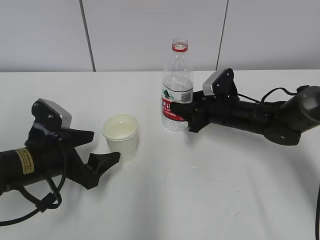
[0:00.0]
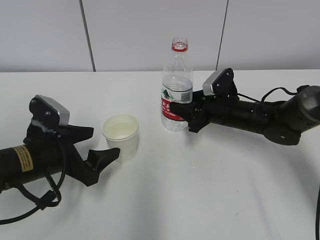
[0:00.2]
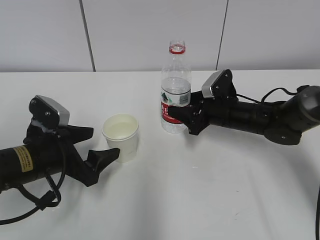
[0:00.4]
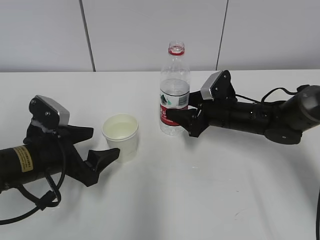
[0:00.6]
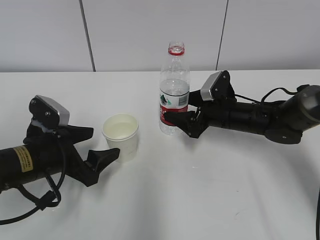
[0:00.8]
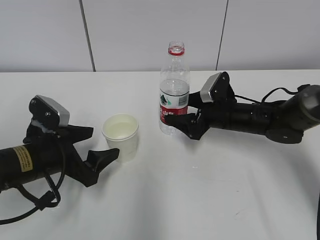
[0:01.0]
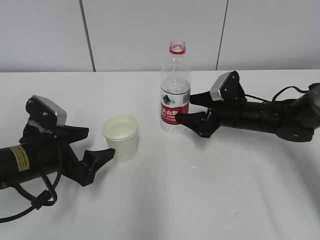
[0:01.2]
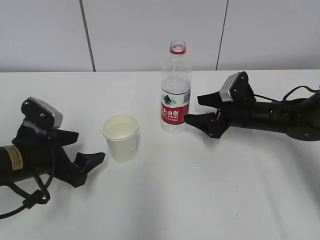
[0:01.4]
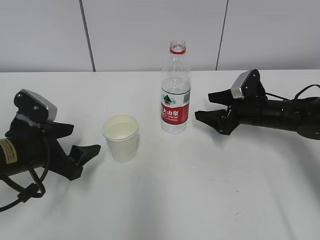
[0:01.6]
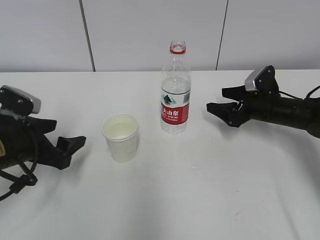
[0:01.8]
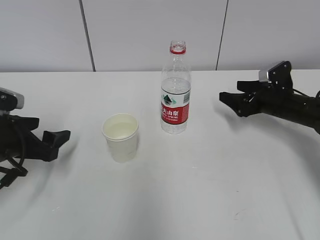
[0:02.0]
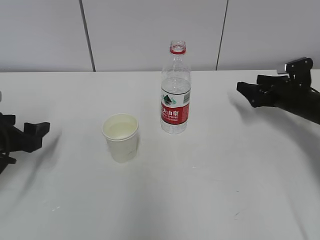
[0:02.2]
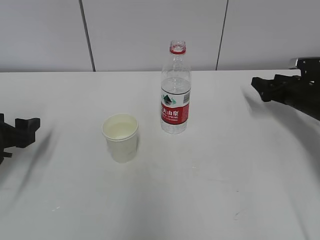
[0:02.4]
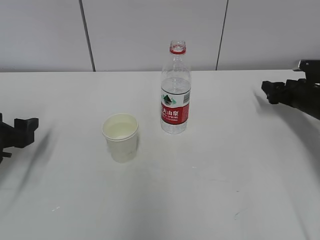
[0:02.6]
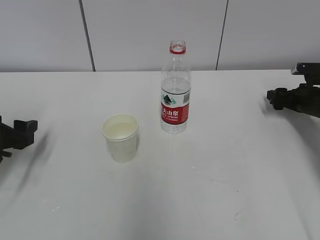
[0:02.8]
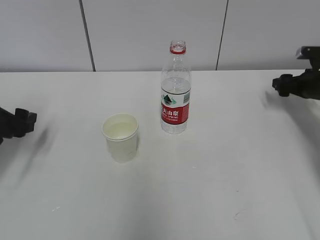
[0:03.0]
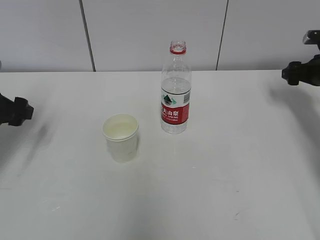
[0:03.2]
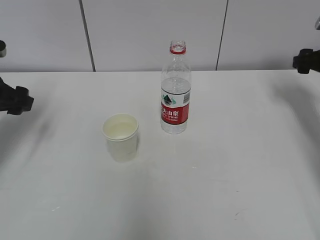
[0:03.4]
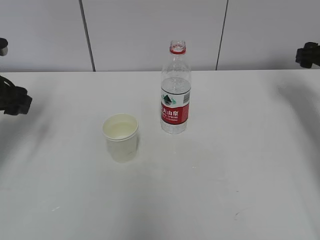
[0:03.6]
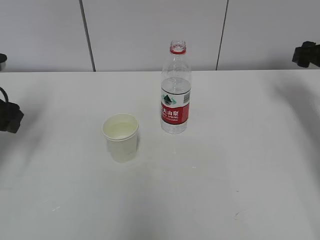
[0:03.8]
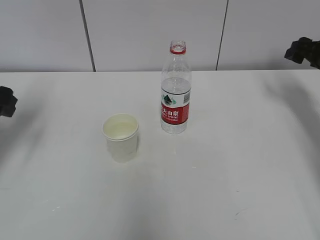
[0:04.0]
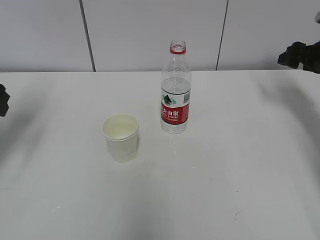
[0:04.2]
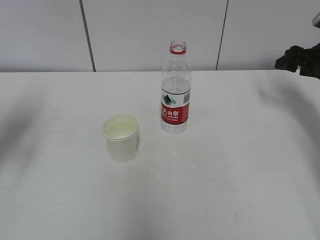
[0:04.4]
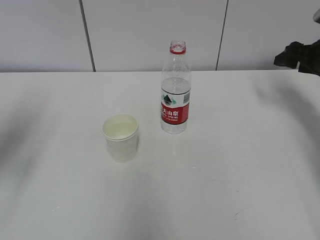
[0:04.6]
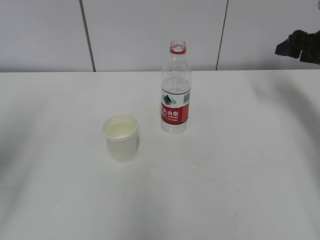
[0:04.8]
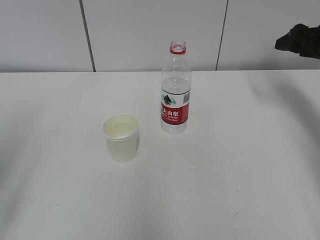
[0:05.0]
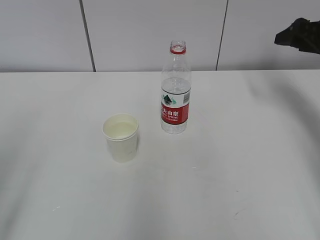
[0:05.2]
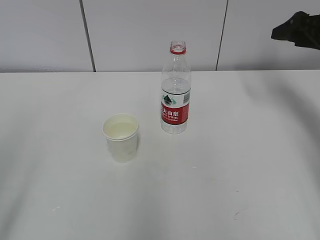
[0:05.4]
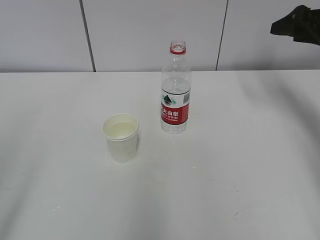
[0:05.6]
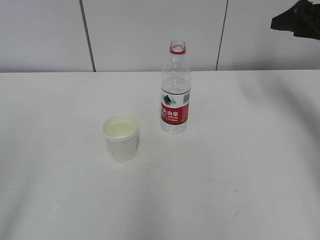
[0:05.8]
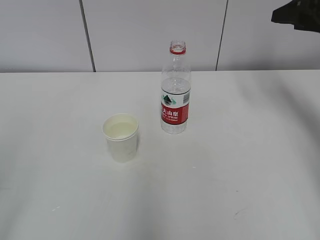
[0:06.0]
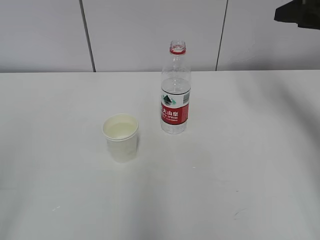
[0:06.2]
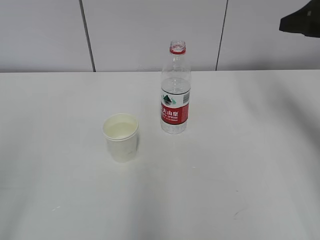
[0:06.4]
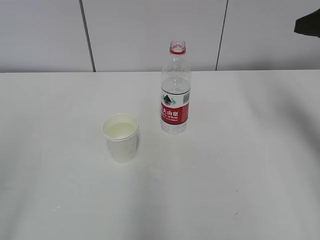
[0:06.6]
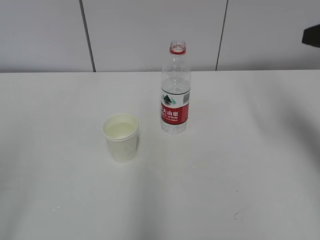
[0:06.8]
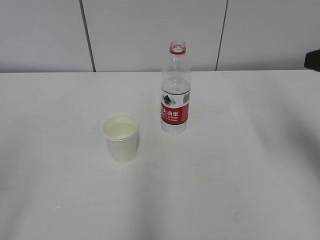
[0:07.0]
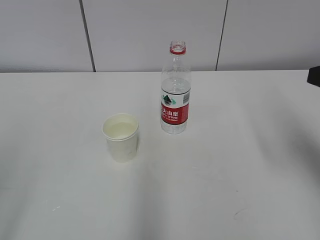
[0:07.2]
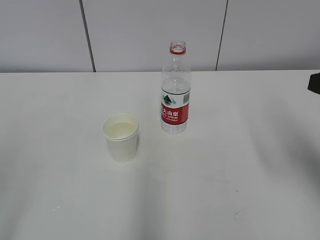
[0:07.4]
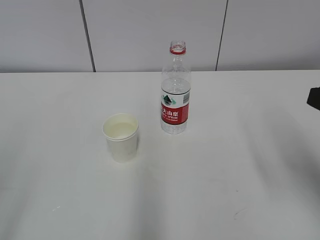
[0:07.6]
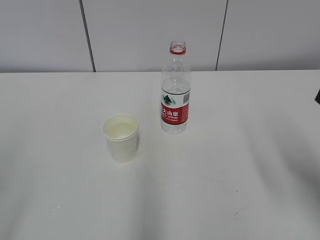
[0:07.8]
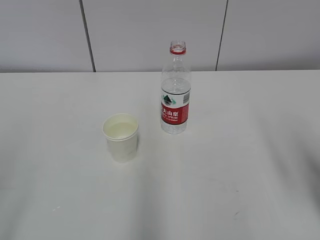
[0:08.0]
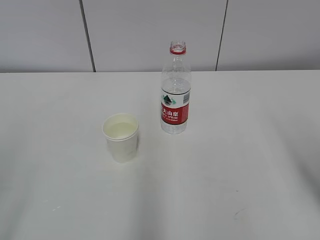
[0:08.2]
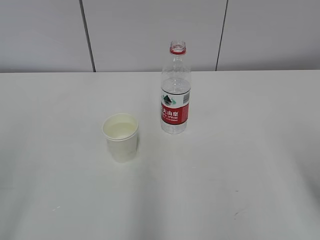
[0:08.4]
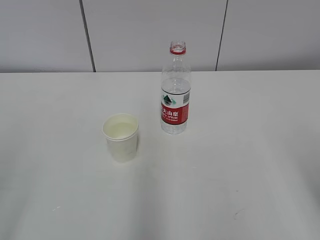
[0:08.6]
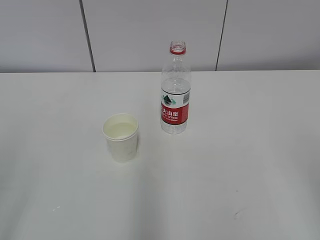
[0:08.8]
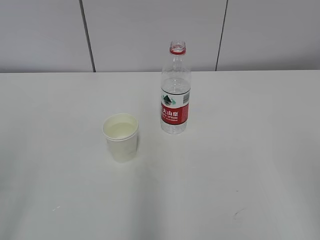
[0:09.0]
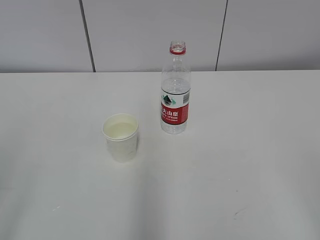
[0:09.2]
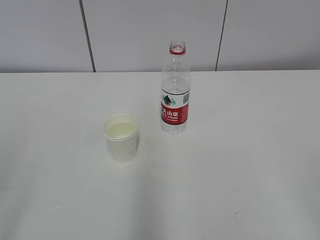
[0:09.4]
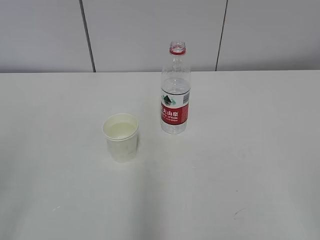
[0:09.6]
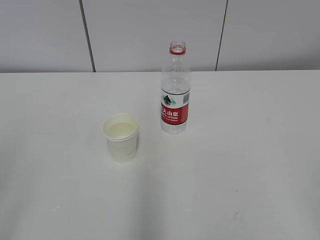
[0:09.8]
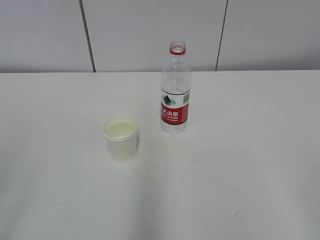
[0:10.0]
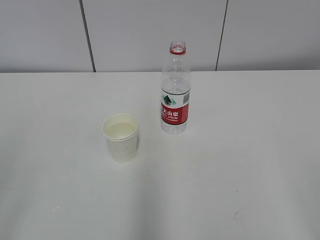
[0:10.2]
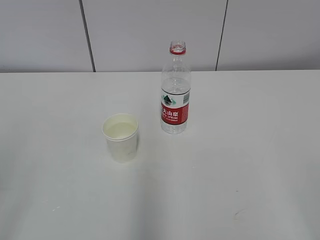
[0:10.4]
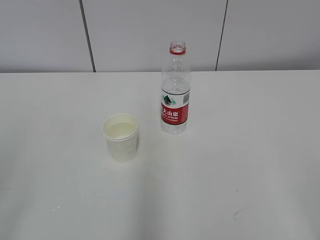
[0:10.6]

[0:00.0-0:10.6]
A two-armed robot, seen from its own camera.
0:00.0 to 0:01.6: The right gripper heads to the right, covering some 5 cm, and opens up.
0:01.6 to 0:03.0: The left gripper moves to the left, approximately 10 cm. The right gripper moves to the right, about 15 cm.
0:03.0 to 0:04.6: The right gripper moves upward, about 10 cm. Meanwhile the left gripper moves upward and backward, some 15 cm.
0:04.6 to 0:06.0: The right gripper is displaced upward by about 10 cm. Meanwhile the left gripper is displaced backward by some 25 cm.
0:06.0 to 0:07.6: The right gripper is displaced backward by approximately 25 cm.
0:07.6 to 0:09.0: The right gripper goes about 15 cm backward.

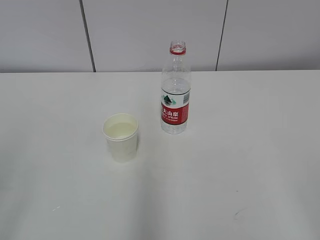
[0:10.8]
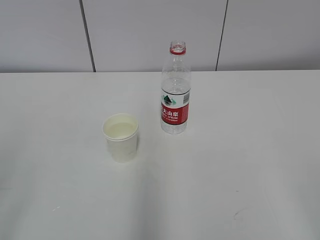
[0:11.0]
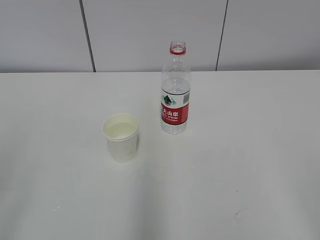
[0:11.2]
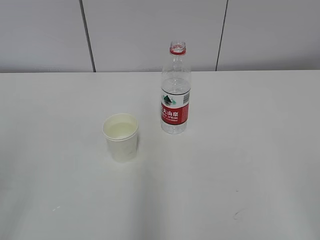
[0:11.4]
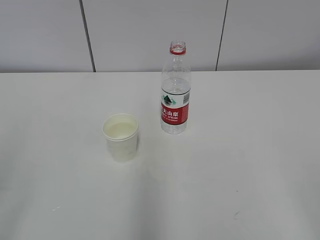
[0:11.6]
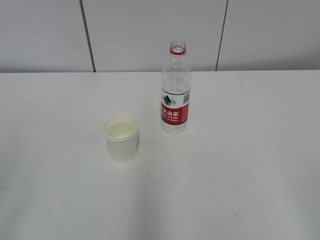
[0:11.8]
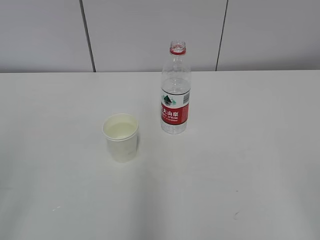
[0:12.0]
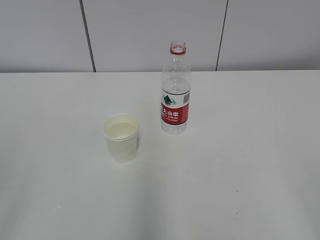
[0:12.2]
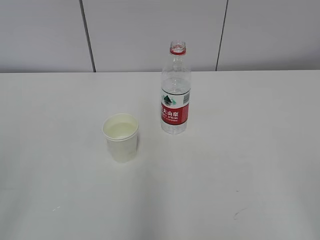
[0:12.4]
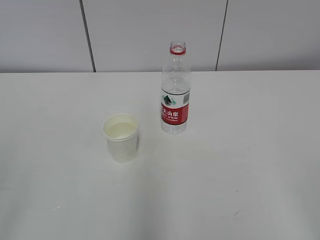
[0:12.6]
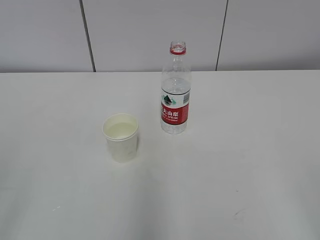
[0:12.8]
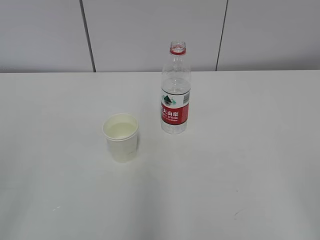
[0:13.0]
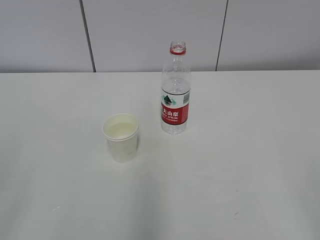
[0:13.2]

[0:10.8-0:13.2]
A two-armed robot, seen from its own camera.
0:10.8 to 0:12.0: Neither gripper changes place.

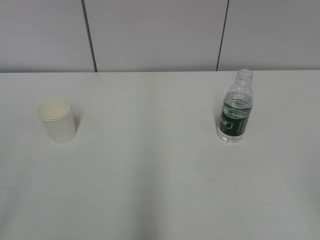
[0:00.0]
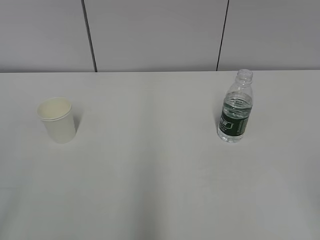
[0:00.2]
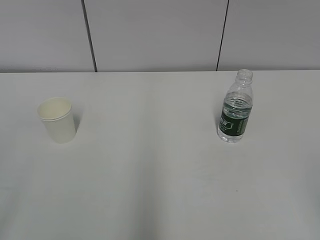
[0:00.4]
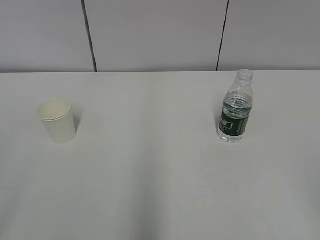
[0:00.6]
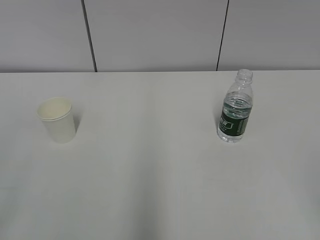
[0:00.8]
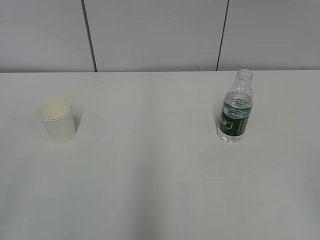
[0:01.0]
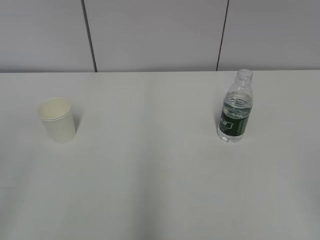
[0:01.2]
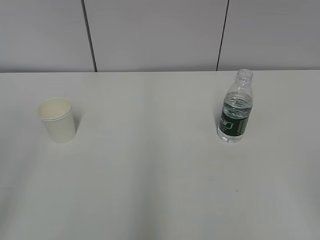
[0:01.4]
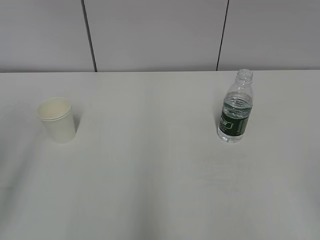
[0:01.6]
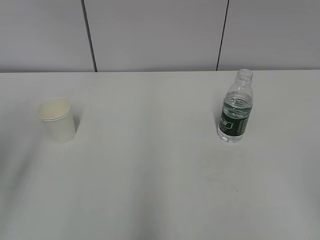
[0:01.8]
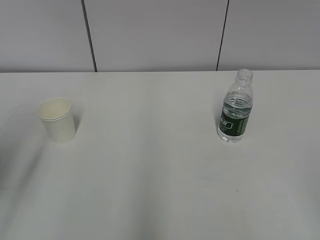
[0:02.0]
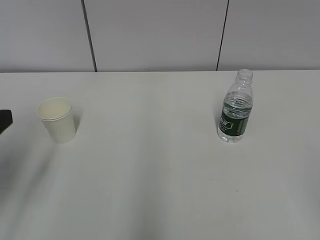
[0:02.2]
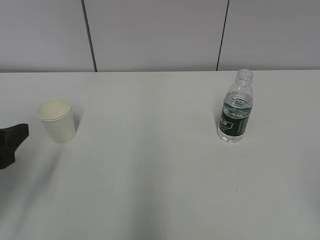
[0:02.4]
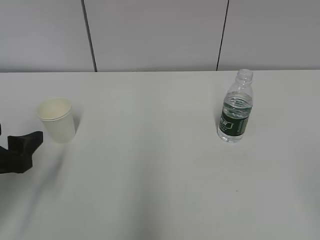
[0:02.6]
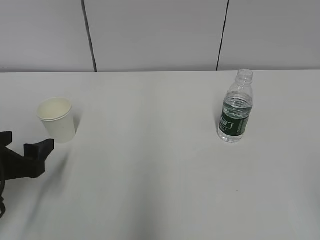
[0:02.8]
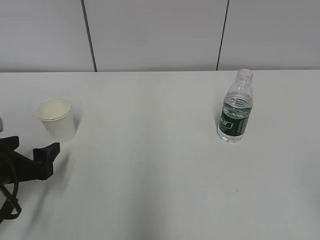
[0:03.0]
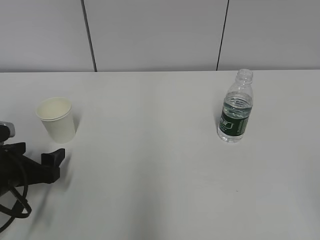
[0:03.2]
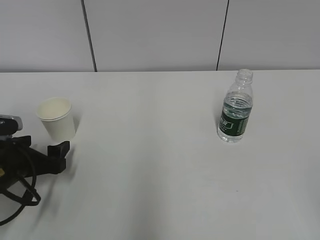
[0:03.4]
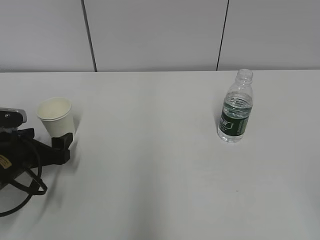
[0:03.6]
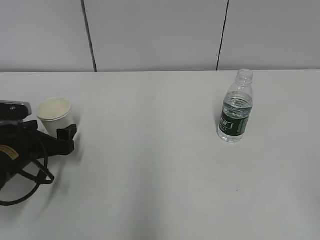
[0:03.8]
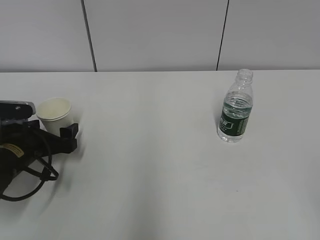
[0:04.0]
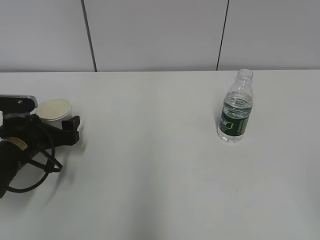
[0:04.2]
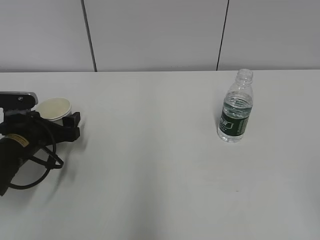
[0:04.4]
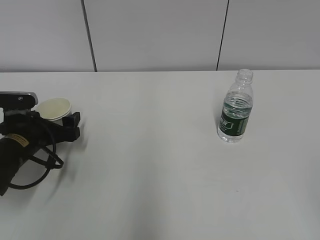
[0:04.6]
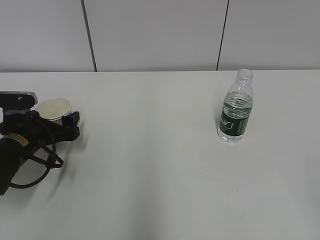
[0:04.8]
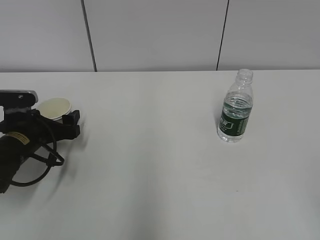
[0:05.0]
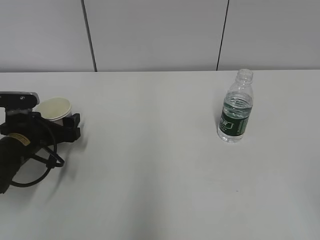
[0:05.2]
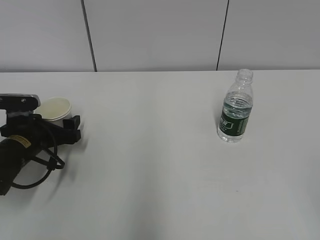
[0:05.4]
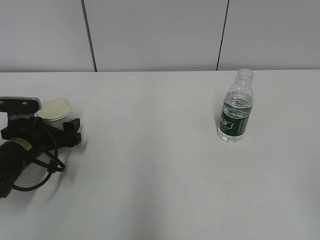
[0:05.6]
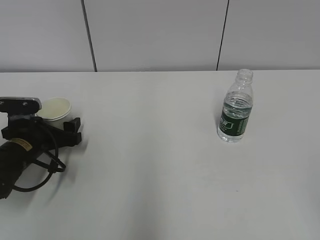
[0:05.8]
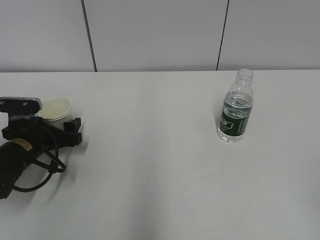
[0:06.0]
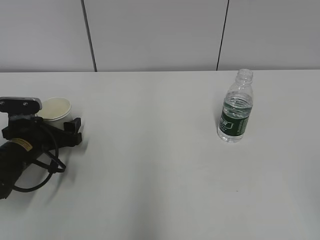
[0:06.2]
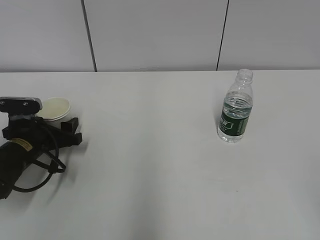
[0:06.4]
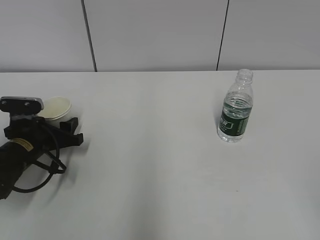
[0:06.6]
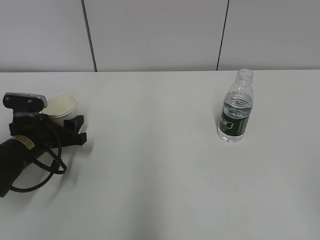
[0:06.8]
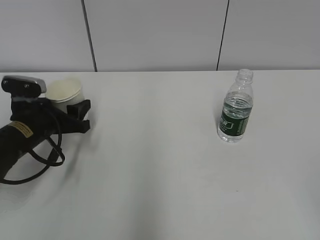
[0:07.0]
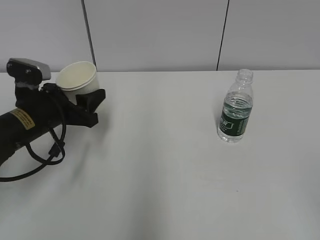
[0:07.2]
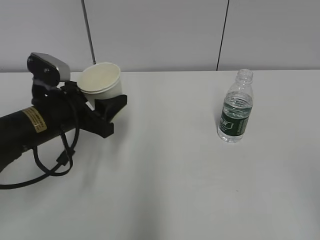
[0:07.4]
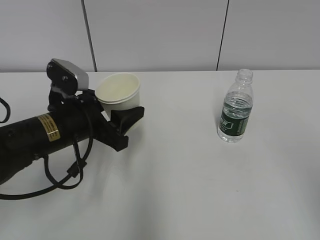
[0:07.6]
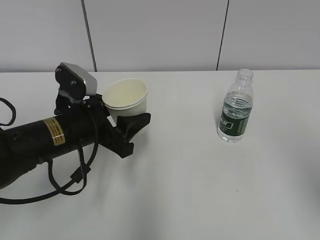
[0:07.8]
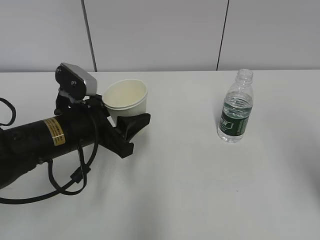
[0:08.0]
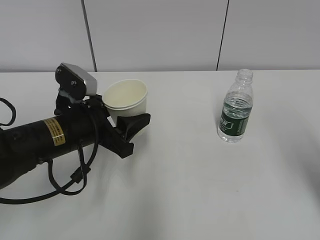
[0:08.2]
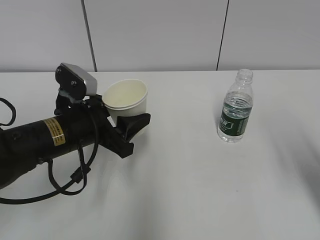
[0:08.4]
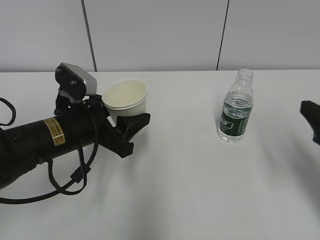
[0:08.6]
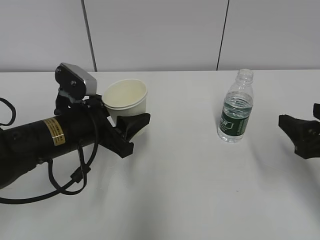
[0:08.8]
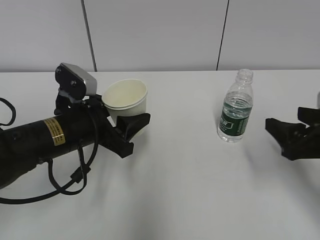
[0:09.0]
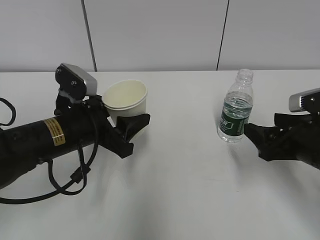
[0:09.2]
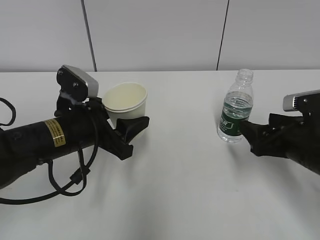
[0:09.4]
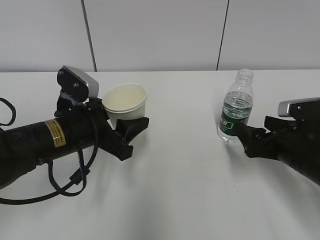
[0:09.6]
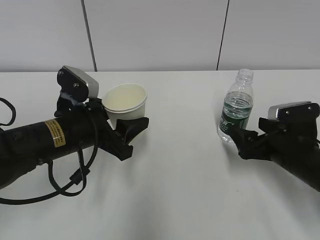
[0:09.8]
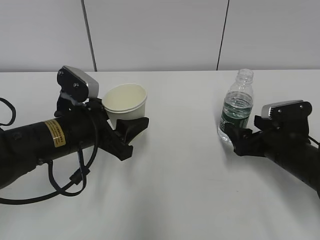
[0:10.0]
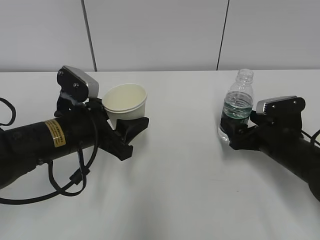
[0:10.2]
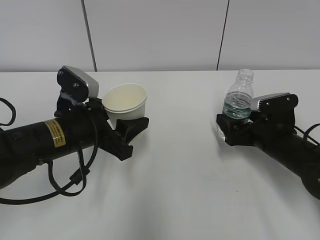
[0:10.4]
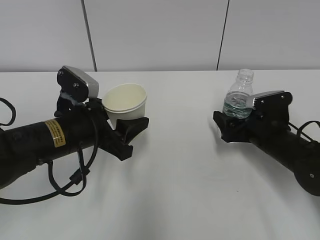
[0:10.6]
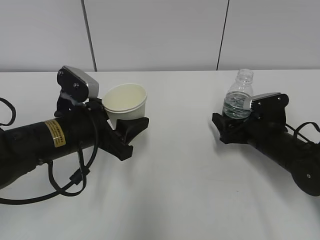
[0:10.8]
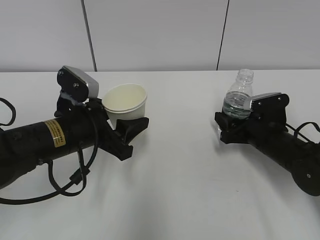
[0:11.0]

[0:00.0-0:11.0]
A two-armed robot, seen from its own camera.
Step, 0:00.0 to 0:05.4: Grab the paper cup with the left hand.
Step, 0:05.6 to 0:10.0: Grab the water bottle with the right hand.
0:01.6 to 0:03.2: The left gripper moves downward and forward, some 25 cm.
0:03.2 to 0:04.8: The left gripper heads forward, covering roughly 10 cm.
0:04.8 to 0:06.2: The grippers move only a little.
0:06.2 to 0:07.8: The left gripper heads to the right, upward and backward, covering about 15 cm, and closes up. The right gripper heads forward, covering about 10 cm.
0:07.8 to 0:09.4: The right gripper travels forward and downward by roughly 25 cm.
0:09.4 to 0:11.0: The right gripper heads forward and downward, covering about 10 cm, and closes.
